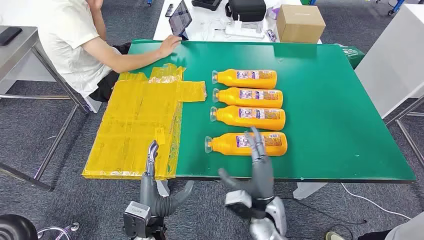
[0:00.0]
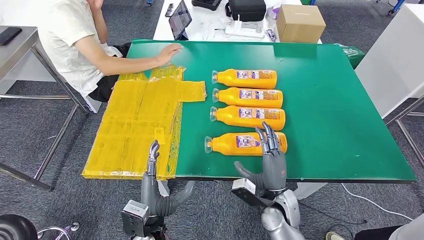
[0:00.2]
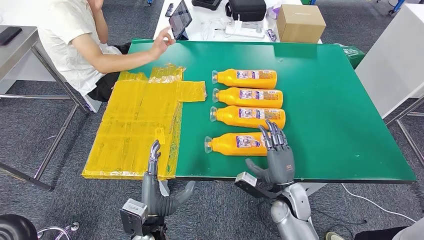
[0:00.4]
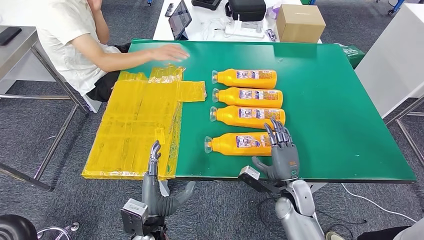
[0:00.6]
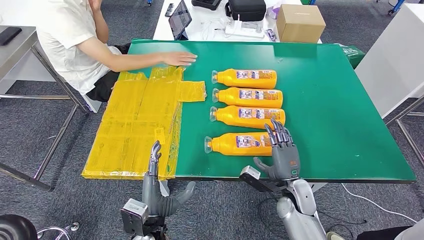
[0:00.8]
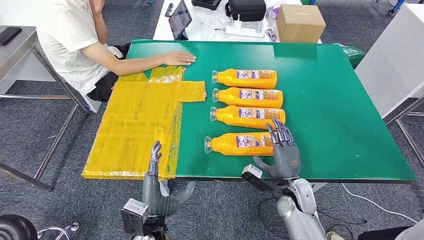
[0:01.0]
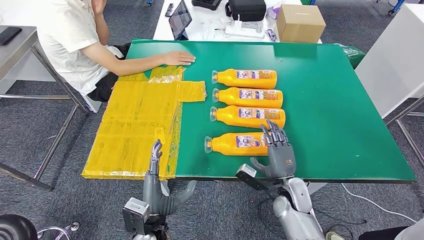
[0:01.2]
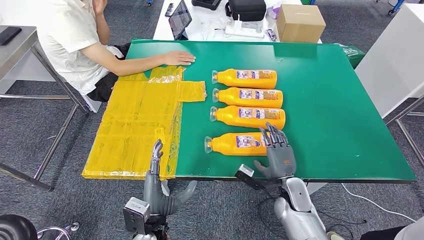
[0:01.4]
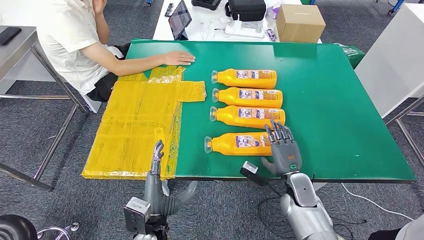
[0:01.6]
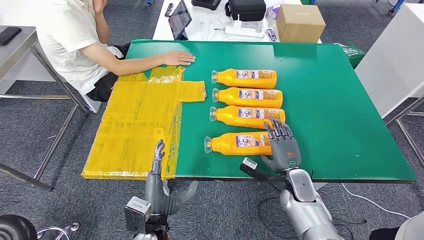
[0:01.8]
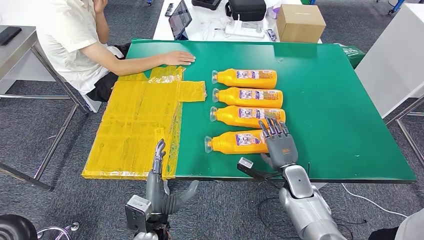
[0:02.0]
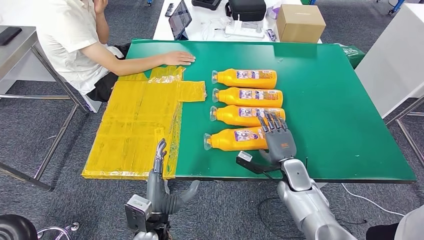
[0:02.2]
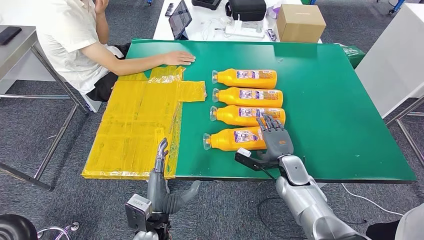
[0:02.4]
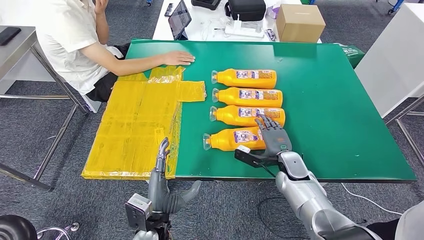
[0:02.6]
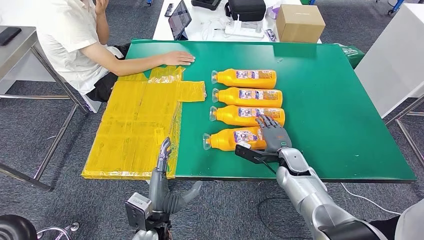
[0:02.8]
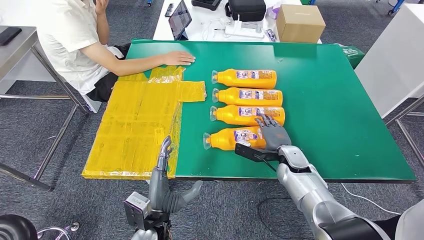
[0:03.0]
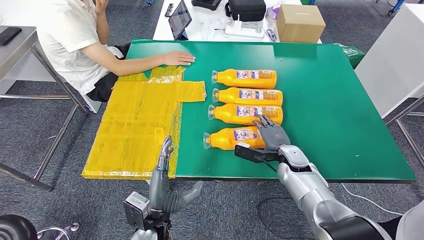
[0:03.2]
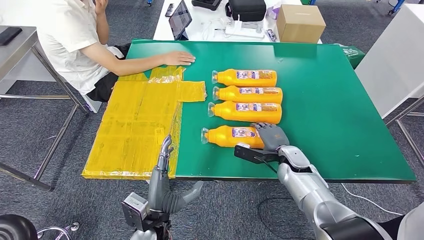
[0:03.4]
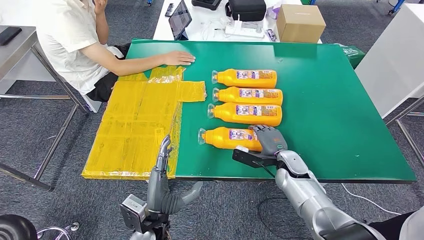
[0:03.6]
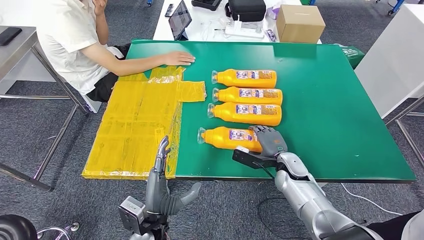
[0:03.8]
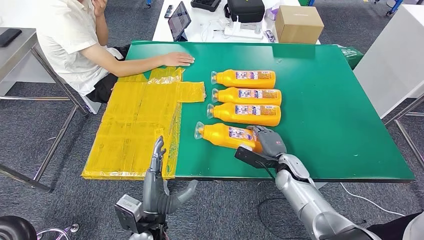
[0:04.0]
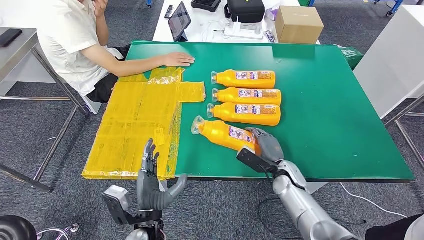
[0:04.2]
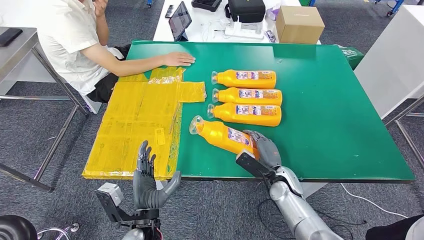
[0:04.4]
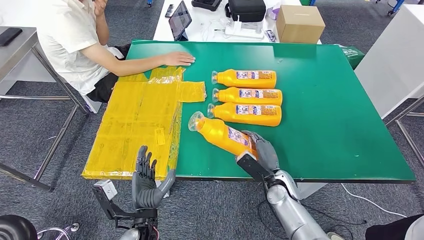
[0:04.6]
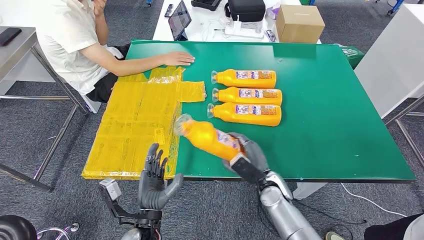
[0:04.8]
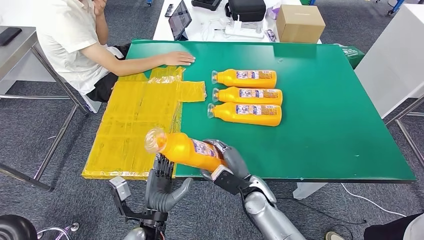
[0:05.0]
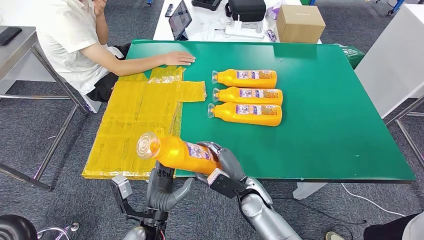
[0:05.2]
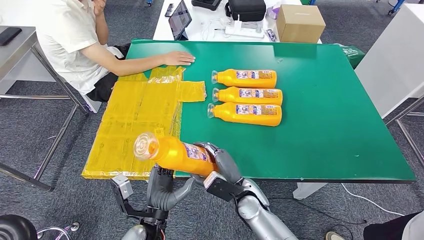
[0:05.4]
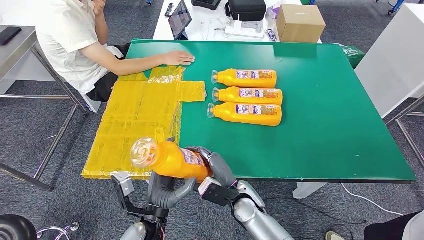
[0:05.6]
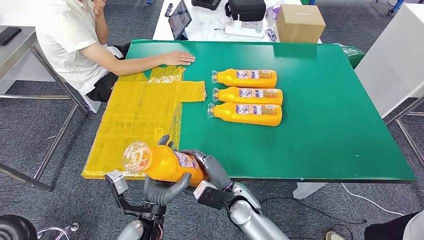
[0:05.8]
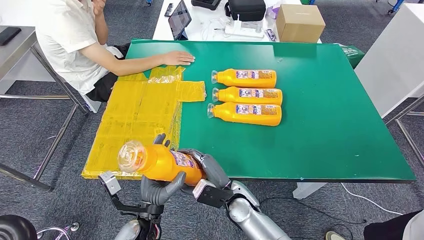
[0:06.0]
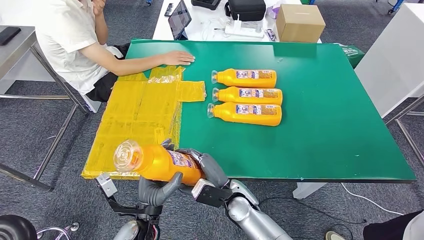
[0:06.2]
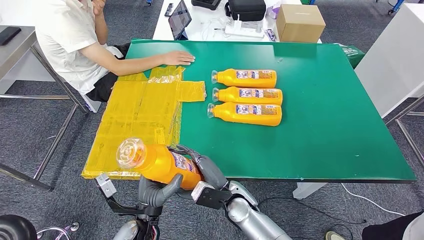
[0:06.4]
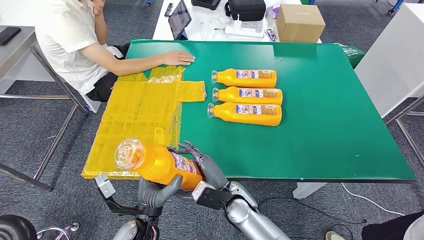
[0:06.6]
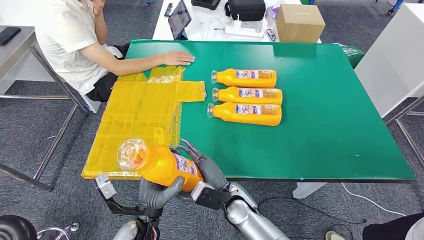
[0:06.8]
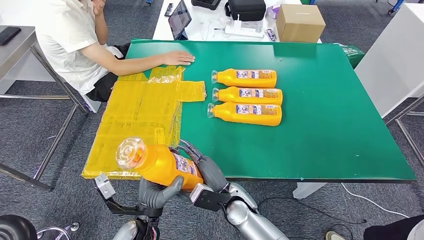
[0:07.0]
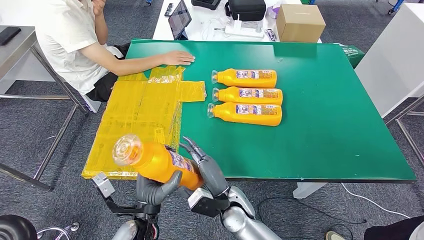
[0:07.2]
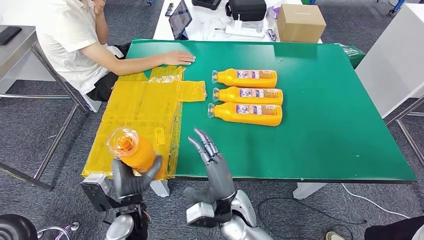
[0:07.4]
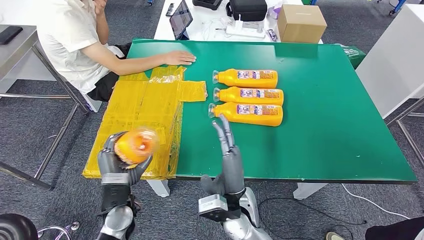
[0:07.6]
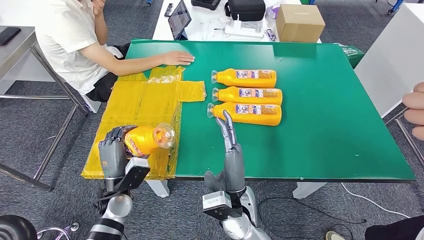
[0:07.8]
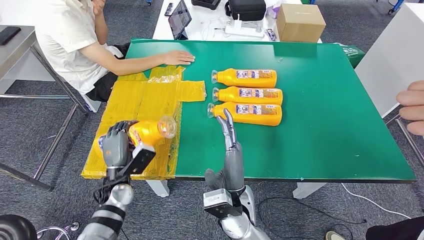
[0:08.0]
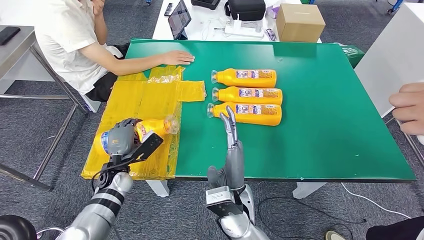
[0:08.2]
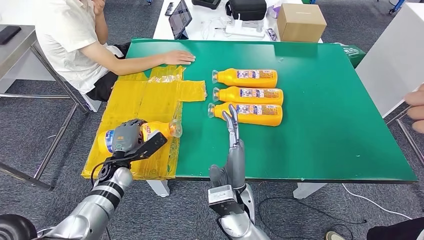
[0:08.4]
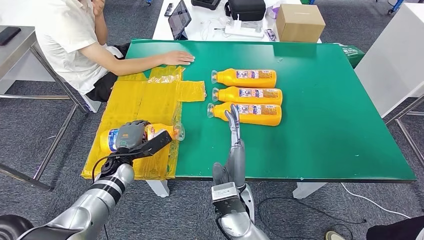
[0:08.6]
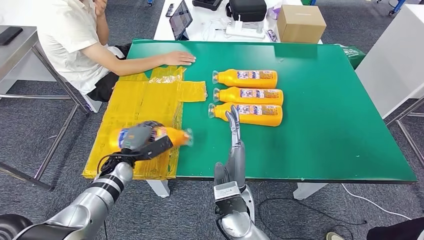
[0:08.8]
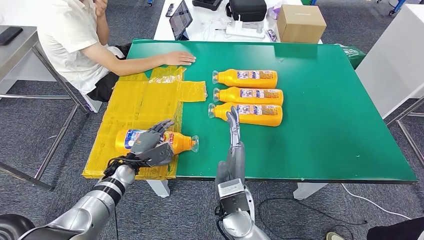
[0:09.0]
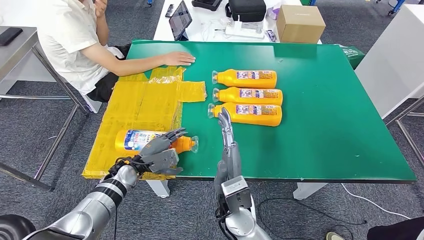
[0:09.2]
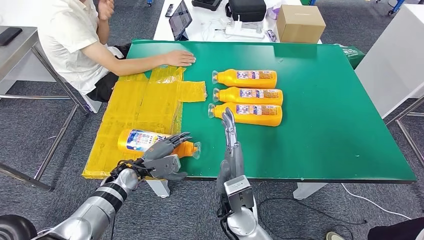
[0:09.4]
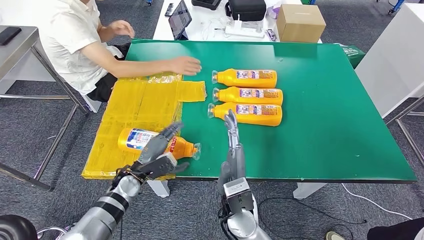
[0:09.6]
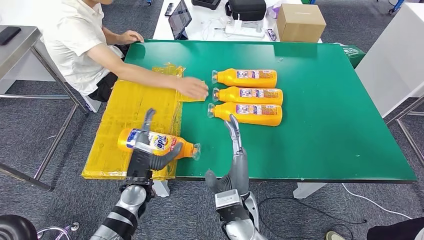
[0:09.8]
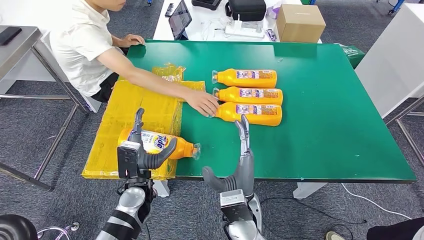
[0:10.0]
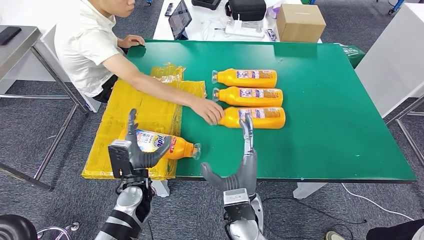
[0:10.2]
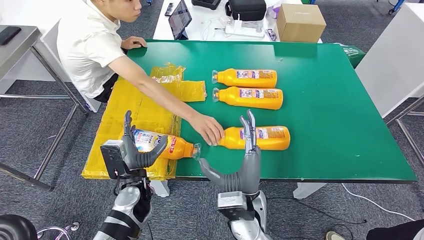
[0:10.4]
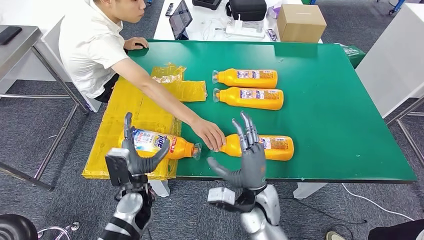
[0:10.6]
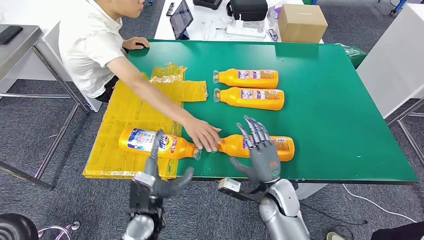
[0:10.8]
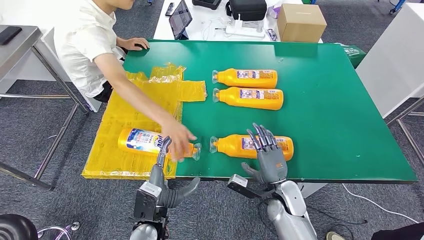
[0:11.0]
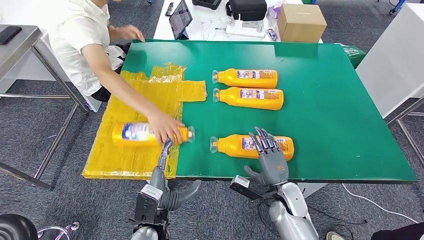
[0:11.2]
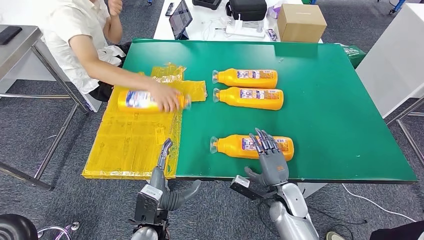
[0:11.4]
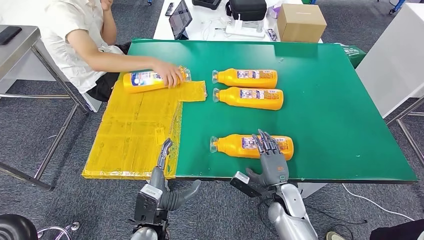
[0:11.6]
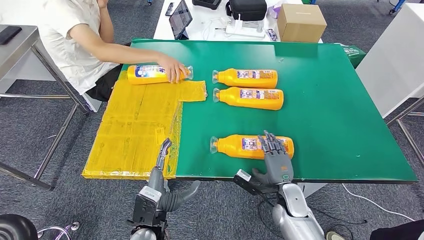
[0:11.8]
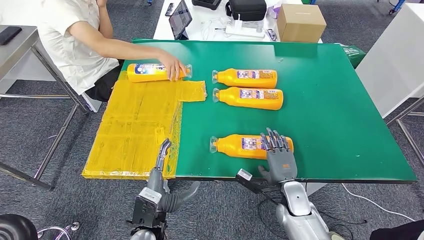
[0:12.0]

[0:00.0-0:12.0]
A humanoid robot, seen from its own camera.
Step, 0.0 to 5.6 s: Take the fast-moving consumer goods bottle from the table.
Step, 5.8 to 9.4 s: Flip the fast-moving consumer goods bottle to the front side.
1.6 to 3.0 s: The right hand travels forward by about 10 cm.
3.0 to 4.4 s: The right hand goes approximately 5 cm backward.
4.4 to 6.0 s: The right hand heads to the left, covering about 15 cm.
6.0 to 7.6 s: The left hand goes some 5 cm to the left; the right hand shifts about 5 cm upward.
7.6 to 9.0 s: The left hand moves forward, roughly 10 cm.

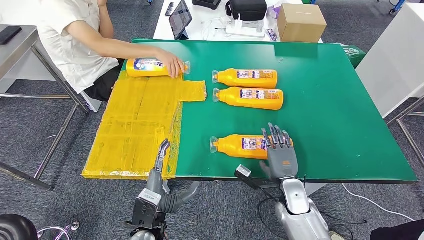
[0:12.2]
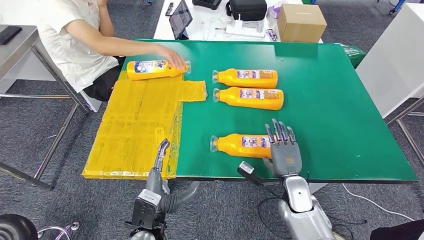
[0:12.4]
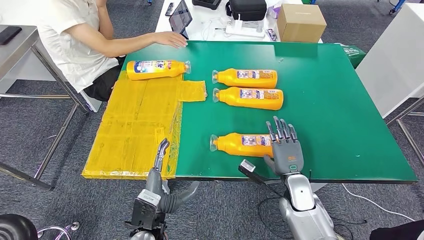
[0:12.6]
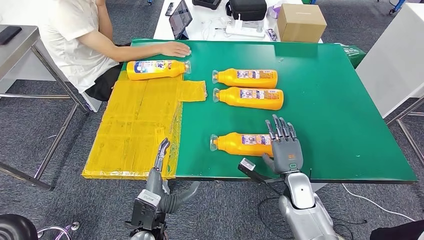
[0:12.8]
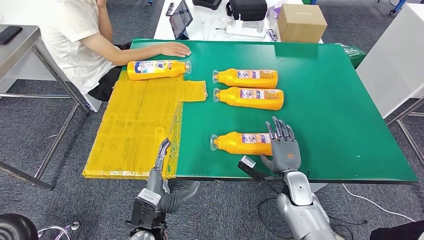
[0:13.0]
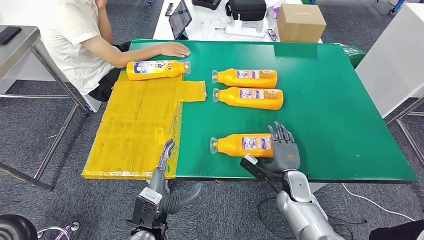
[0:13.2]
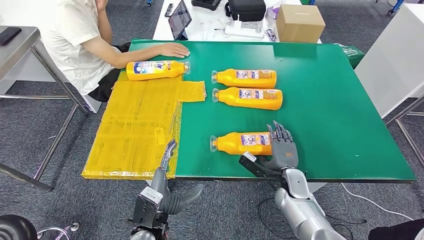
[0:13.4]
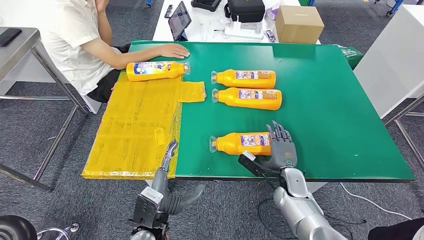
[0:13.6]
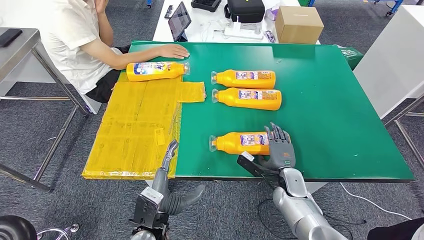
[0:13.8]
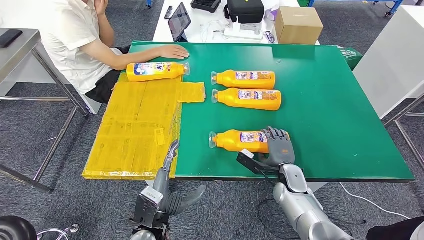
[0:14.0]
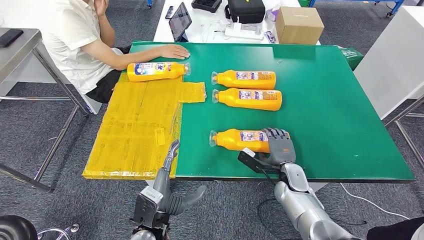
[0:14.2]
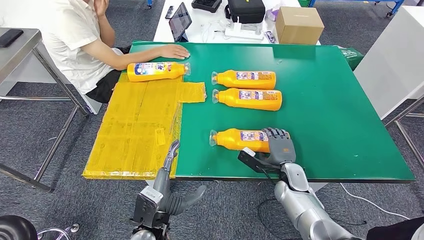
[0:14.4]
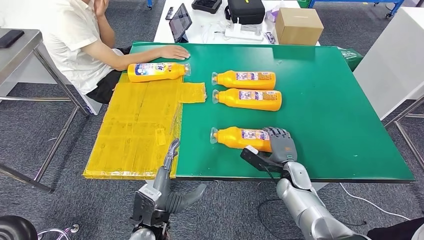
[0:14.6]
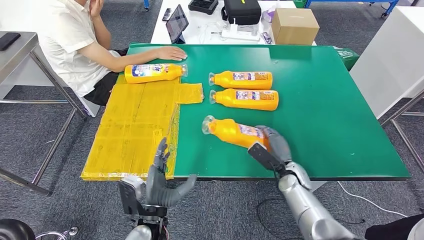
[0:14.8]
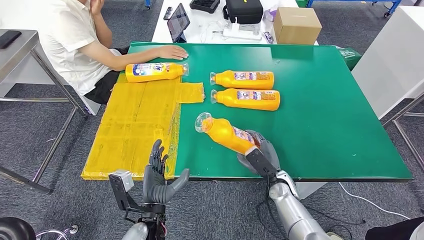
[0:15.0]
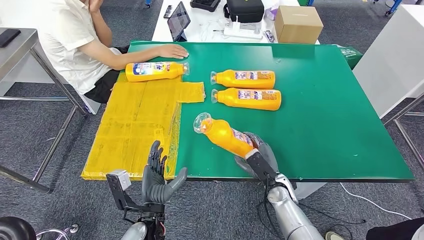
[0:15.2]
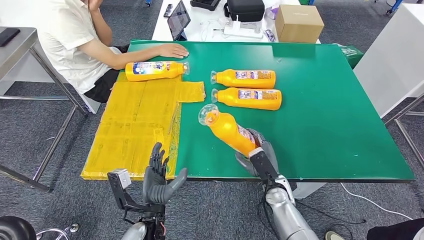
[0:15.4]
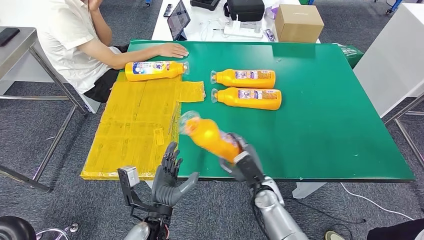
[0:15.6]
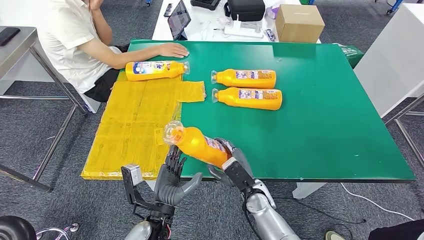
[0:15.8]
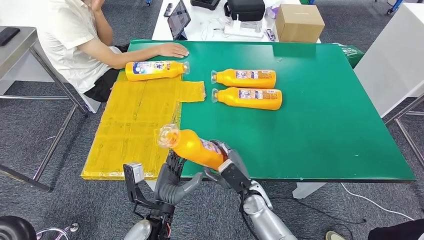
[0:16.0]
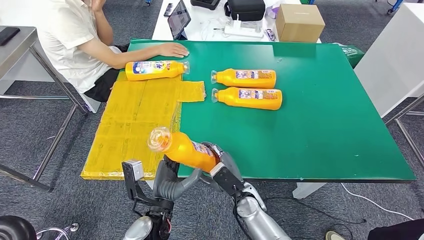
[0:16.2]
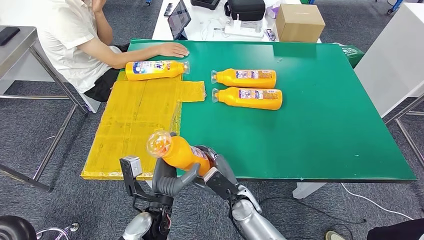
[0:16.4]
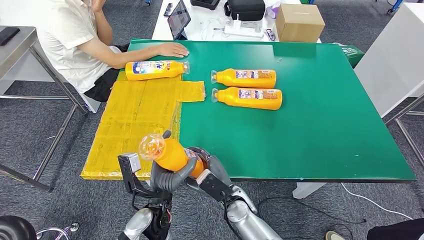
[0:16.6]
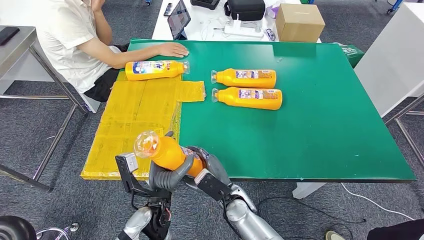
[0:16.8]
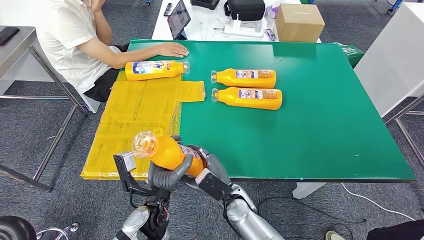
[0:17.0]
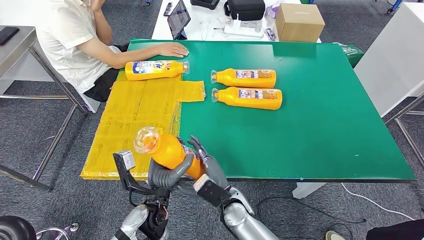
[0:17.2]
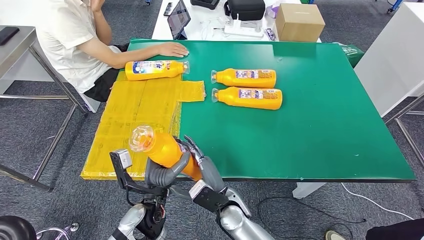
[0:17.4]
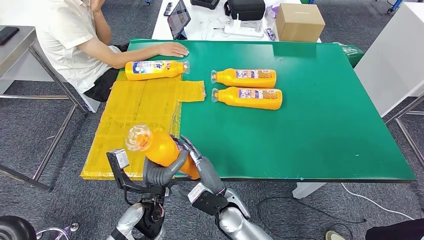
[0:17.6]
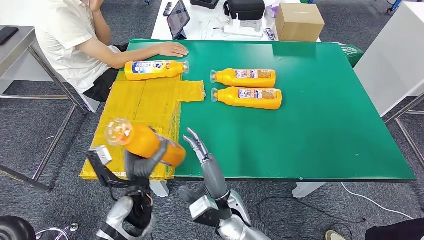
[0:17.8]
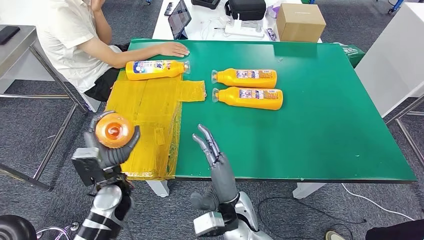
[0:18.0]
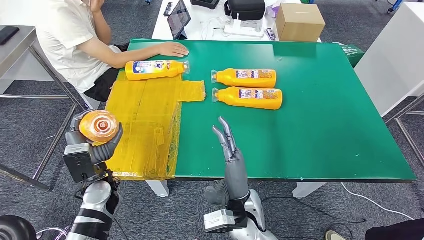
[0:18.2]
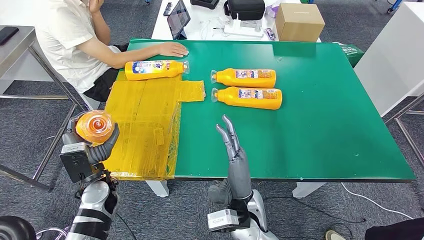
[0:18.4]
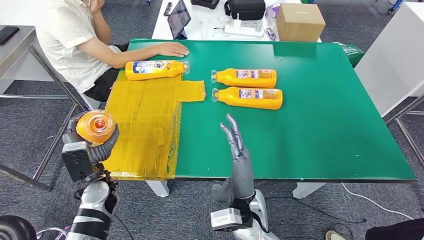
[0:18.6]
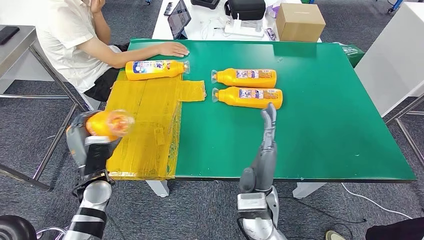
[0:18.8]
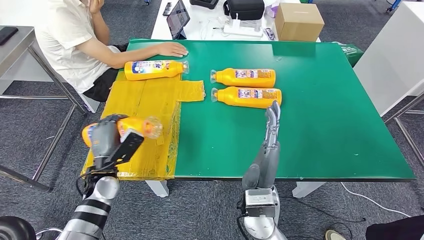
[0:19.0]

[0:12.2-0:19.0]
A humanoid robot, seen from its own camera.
Step, 12.2 to 15.4 s: Pick up the fast-moving consumer goods bottle from the table.
12.2 to 13.6 s: There are only small adjustments of the hands.
16.2 to 17.6 s: The right hand moves to the left, roughly 5 cm.
17.6 to 19.0 s: The left hand heads to the left and forward, covering approximately 15 cm. Meanwhile the right hand is displaced upward and to the right by approximately 10 cm.
